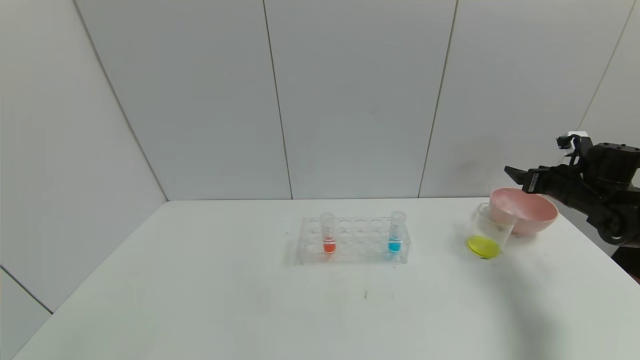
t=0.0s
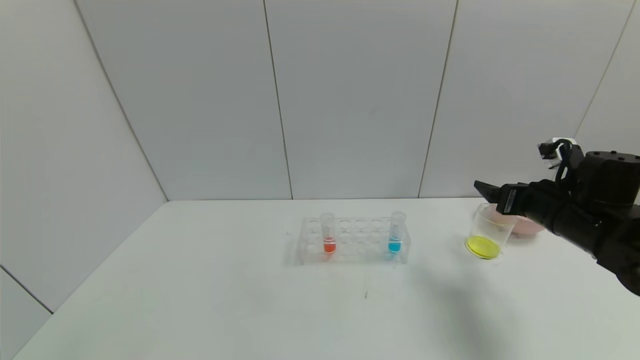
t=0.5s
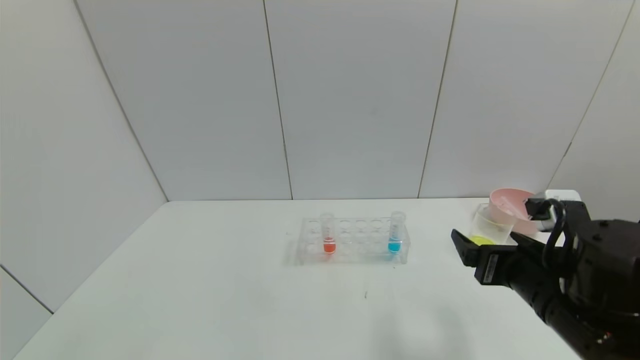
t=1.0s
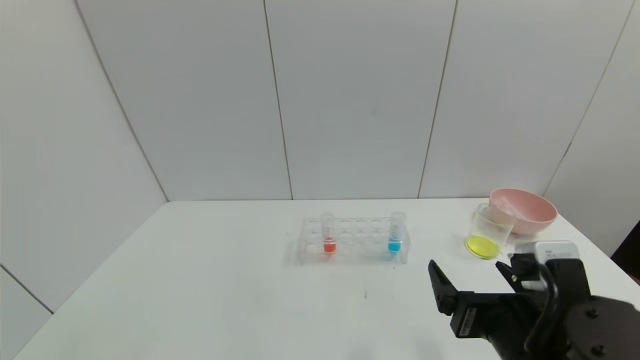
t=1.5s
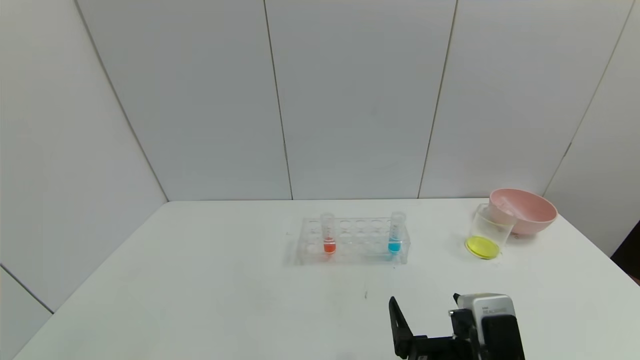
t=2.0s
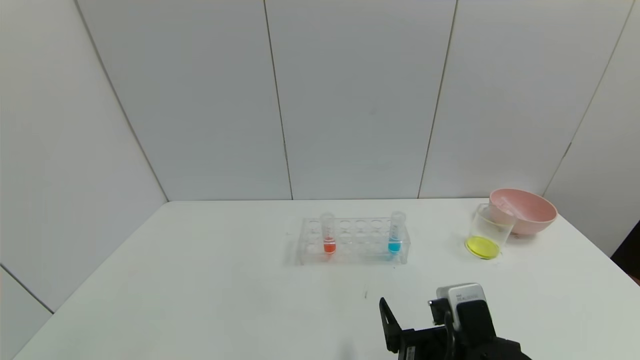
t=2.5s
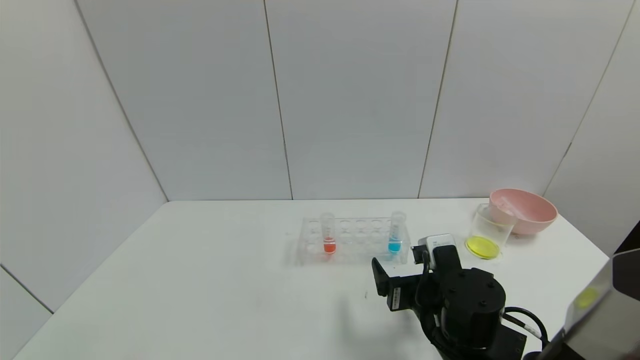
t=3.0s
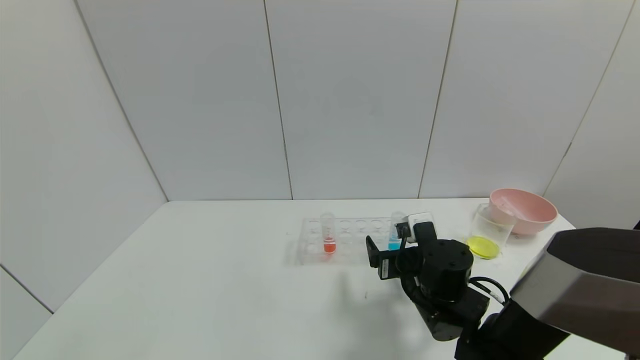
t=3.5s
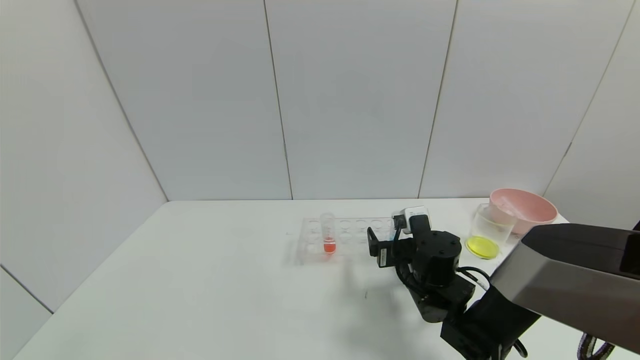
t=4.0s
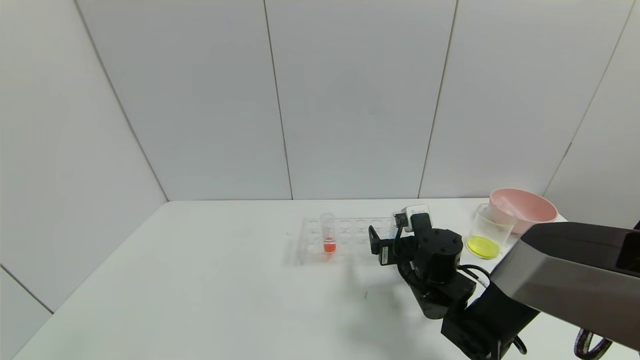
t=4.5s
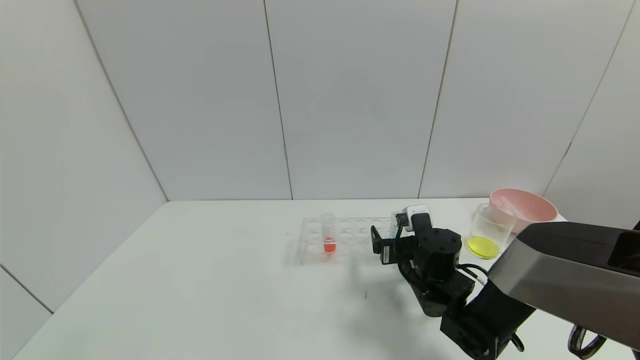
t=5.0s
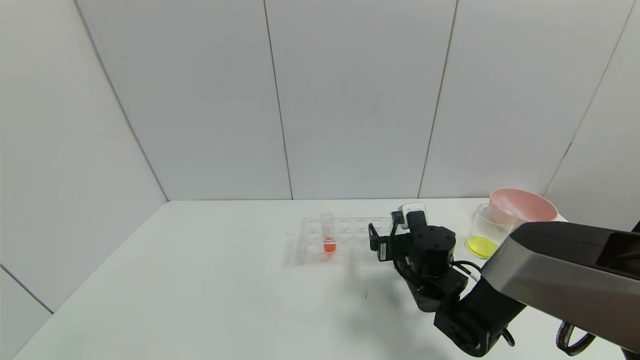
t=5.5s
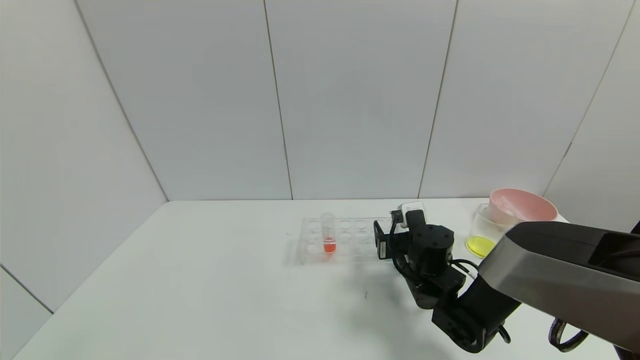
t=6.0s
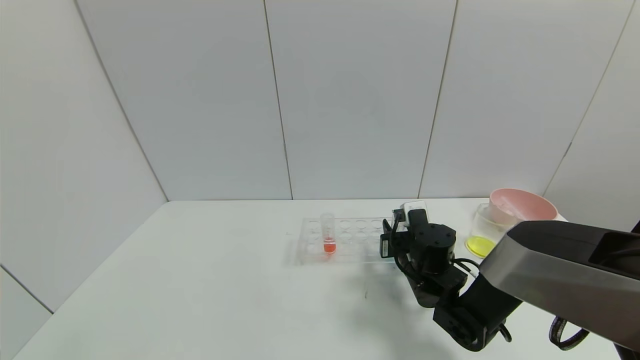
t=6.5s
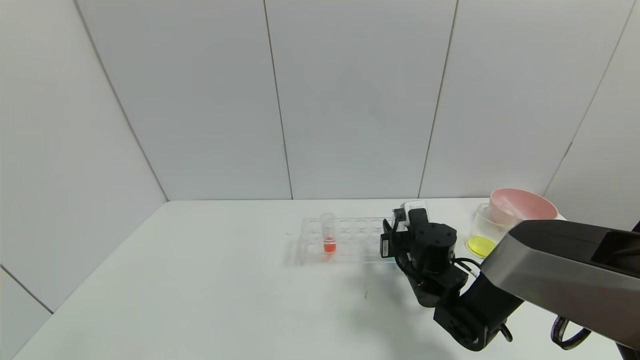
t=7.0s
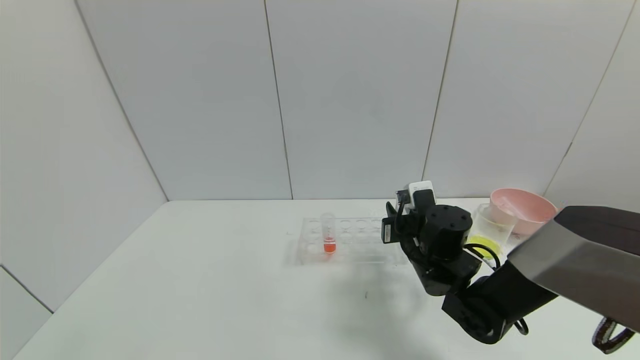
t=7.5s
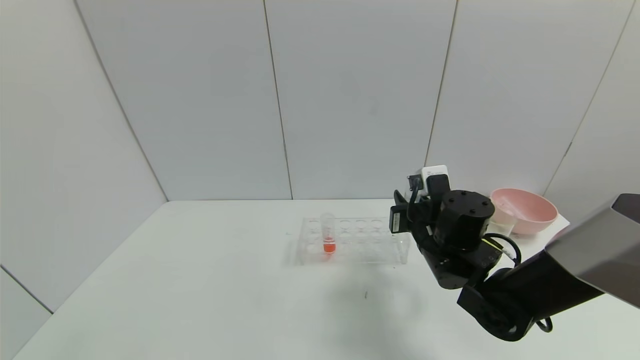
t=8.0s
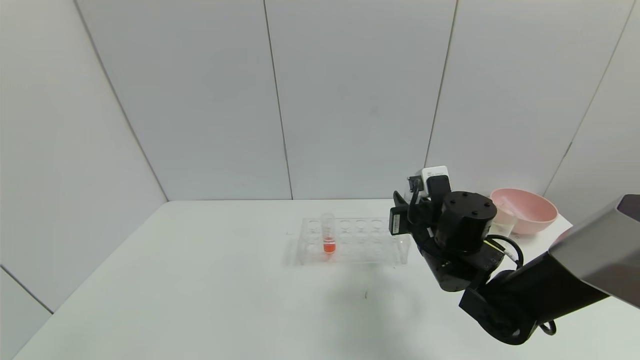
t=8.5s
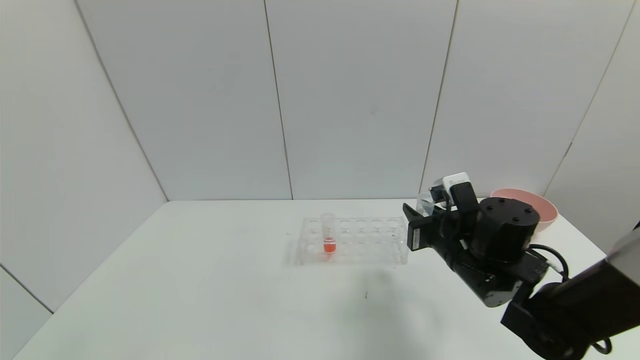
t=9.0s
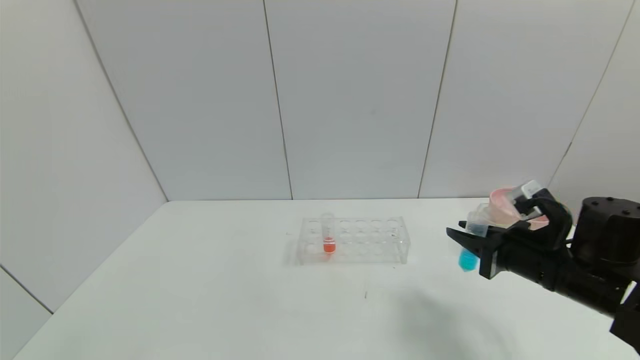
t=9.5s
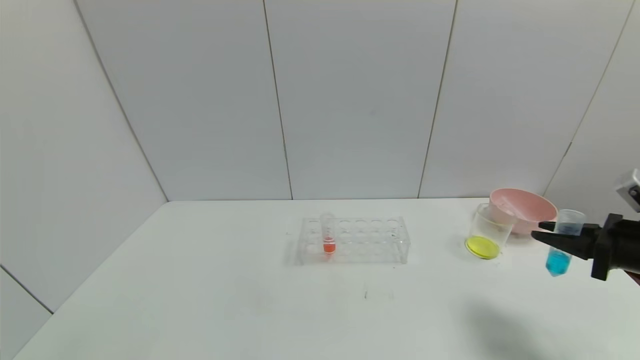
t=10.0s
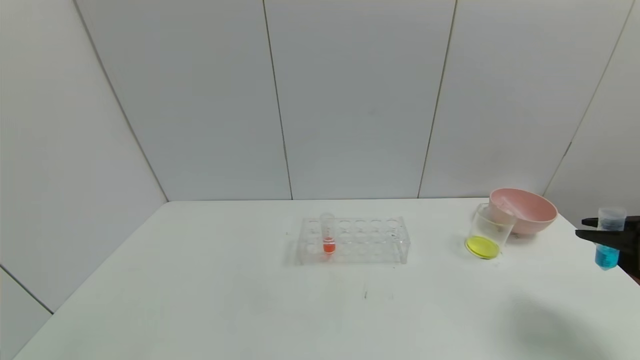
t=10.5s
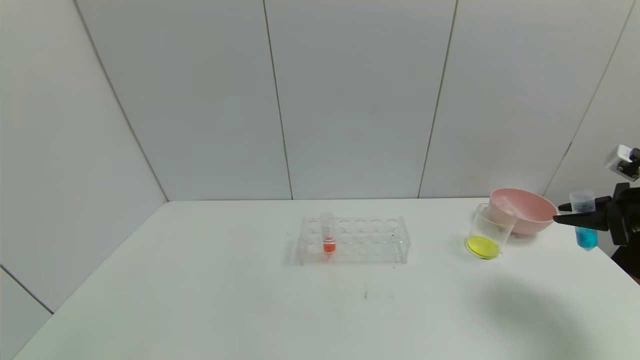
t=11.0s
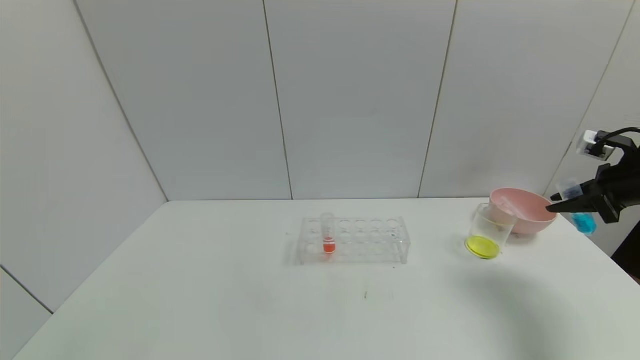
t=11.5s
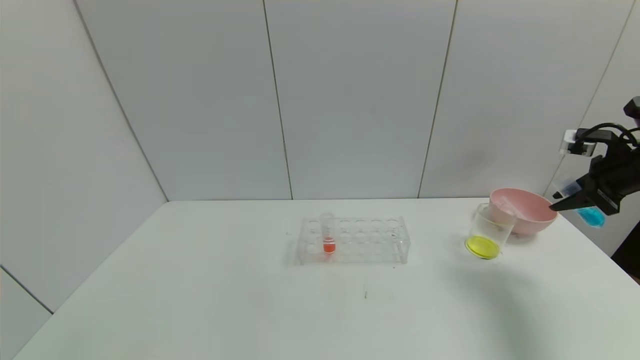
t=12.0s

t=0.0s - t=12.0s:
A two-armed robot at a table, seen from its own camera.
Task of the whole recording: pick up the test tube with yellow pigment and the test tube with blue pigment by grippers and pour them into the beaker.
Step, t=0.0s - t=6.5s: Grasp the blue reagent with the right gripper.
t=0.0s - t=2.0s: The right gripper moves to the left and backward, approximately 40 cm.
t=2.0s - t=4.0s: The right gripper is displaced forward by roughly 20 cm.
t=4.0s - t=6.0s: The right gripper closes.
t=6.0s - t=8.0s: The right gripper shifts approximately 10 cm upward, and closes its fingers.
t=8.0s - t=10.0s: The right gripper shifts some 25 cm to the right.
t=10.0s - t=12.0s: The right gripper goes approximately 15 cm forward and upward.

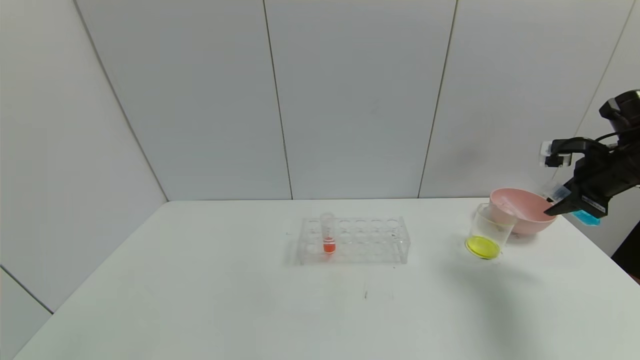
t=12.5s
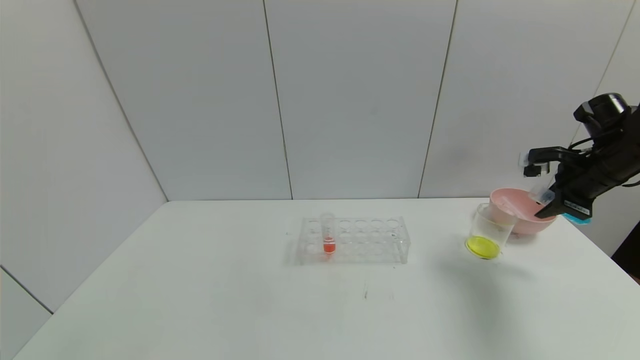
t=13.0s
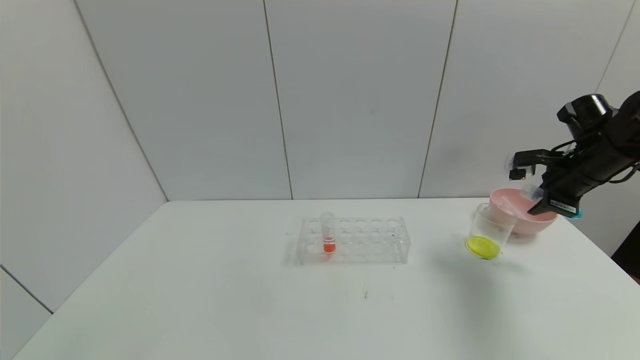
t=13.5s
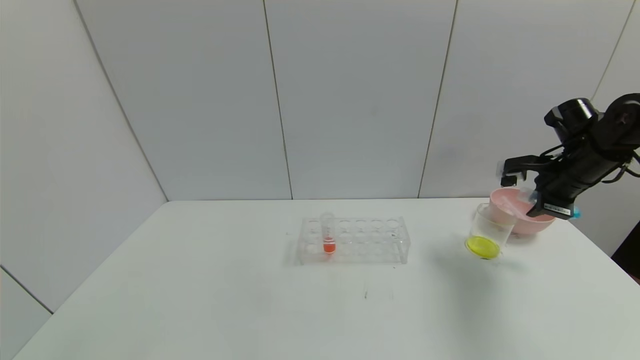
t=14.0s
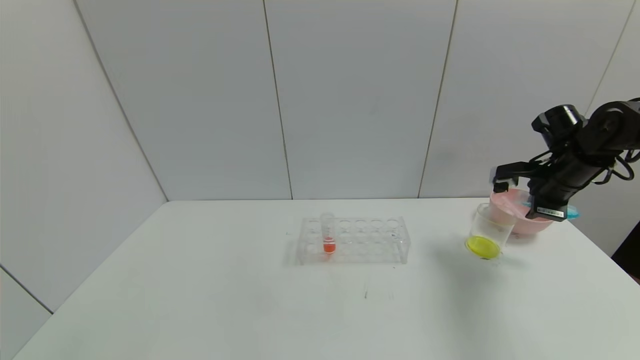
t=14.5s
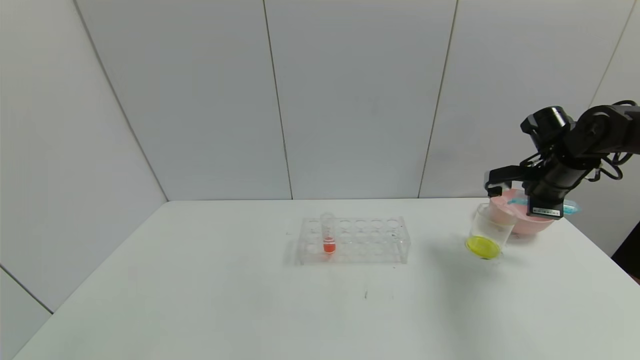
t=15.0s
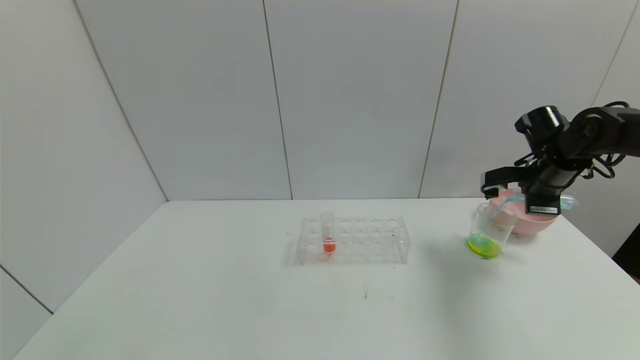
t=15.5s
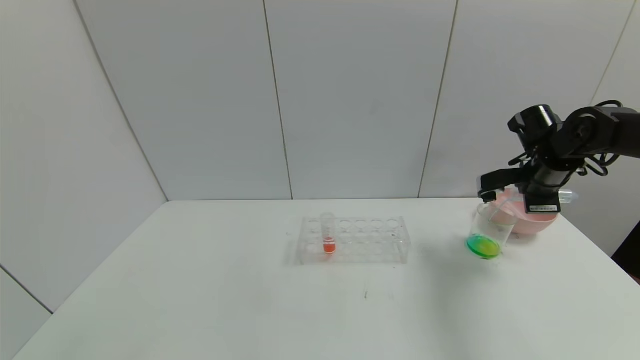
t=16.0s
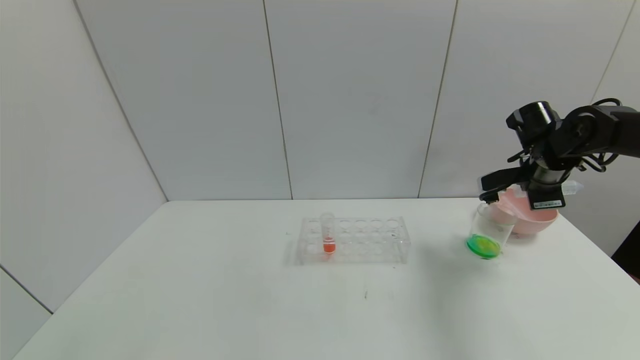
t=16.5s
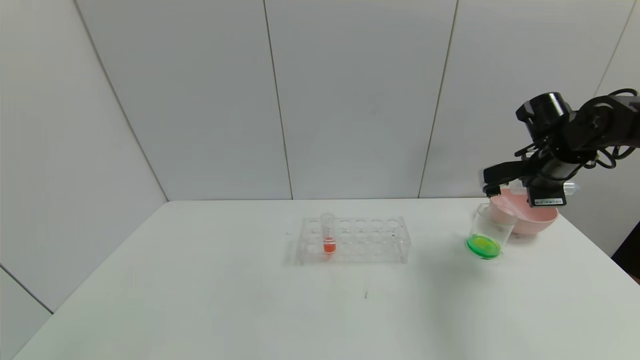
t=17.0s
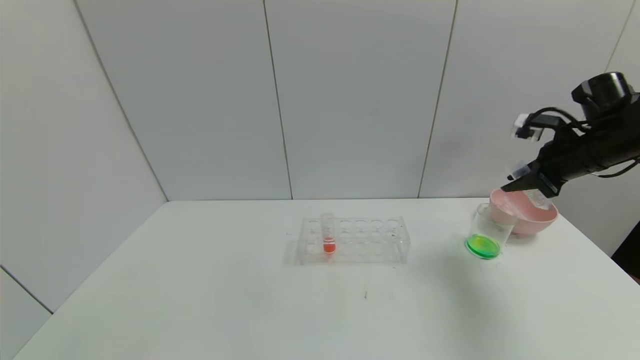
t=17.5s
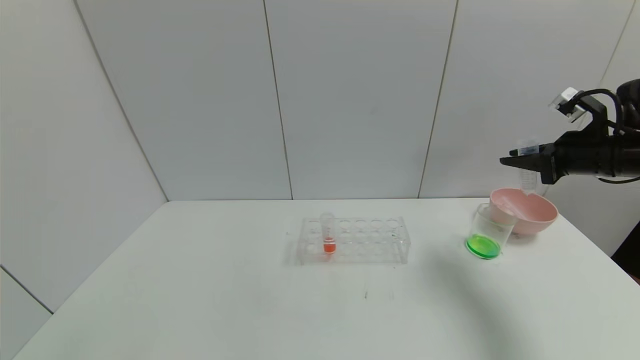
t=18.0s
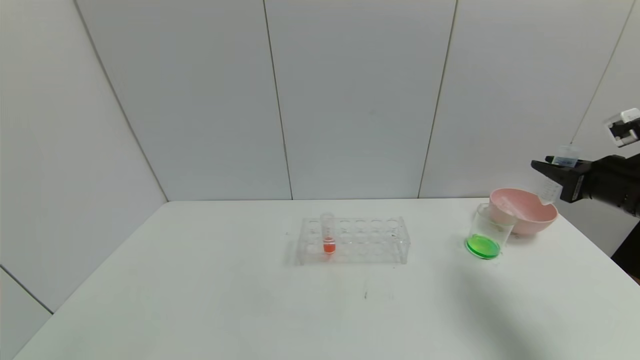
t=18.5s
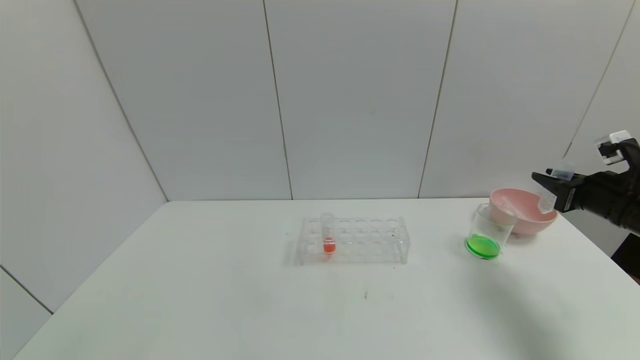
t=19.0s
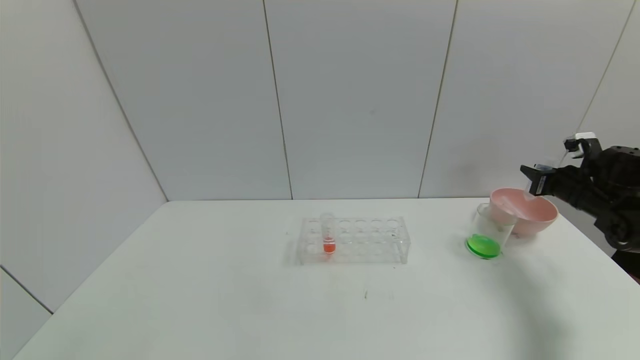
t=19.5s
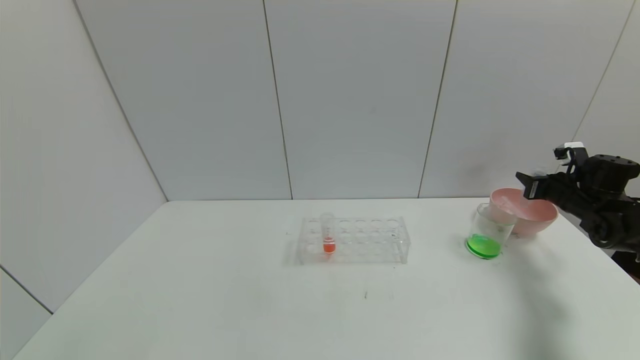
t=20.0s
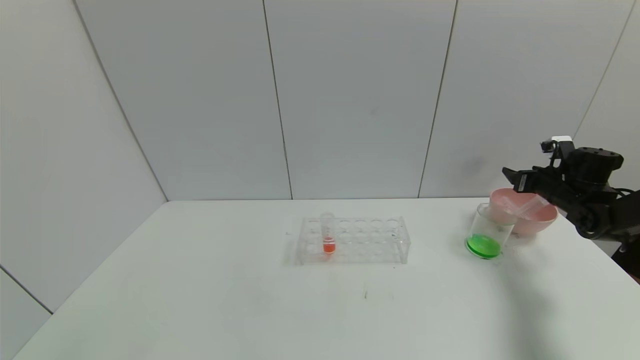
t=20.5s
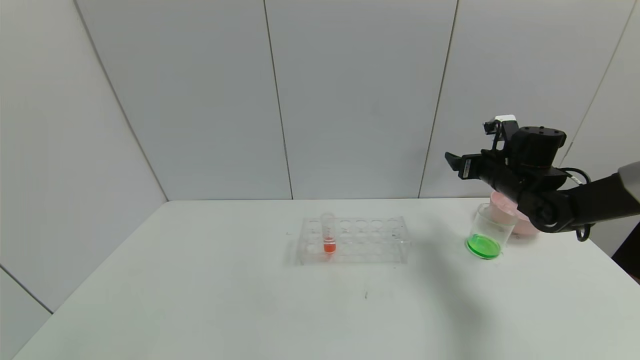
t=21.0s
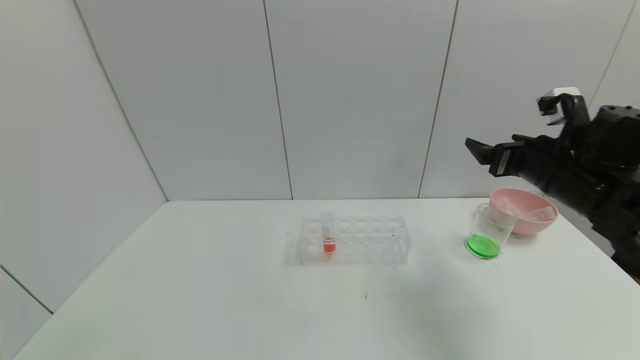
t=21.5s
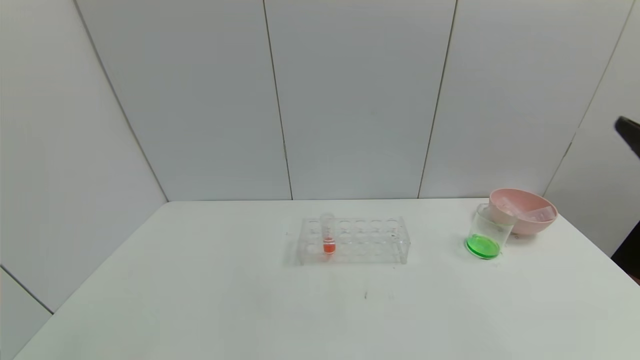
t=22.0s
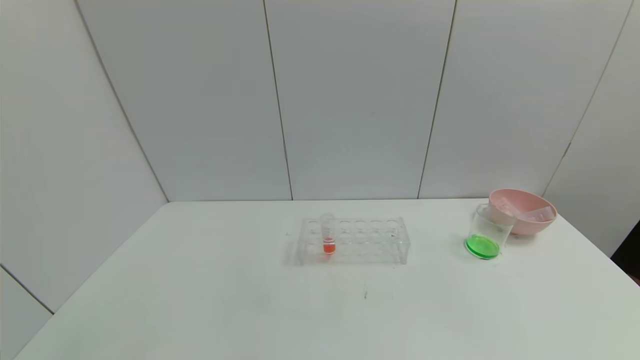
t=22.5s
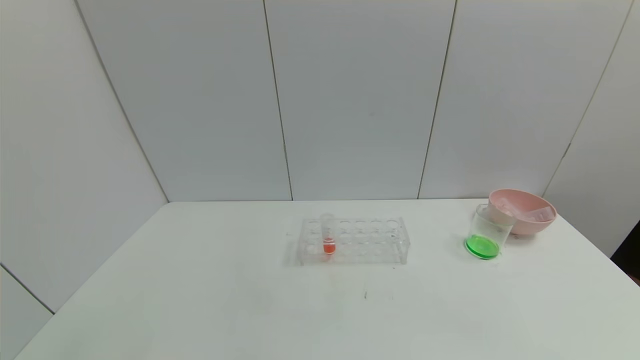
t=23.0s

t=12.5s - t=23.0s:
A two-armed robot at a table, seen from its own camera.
Task of the whole recording: pick up the test tube with yellow pigment and the test tube with blue pigment by grippers and pour them into the beaker.
Step, t=12.5s - t=16.5s: Pour the blue reagent into the graduated cylinder with the right gripper.
Step, t=17.0s - t=20.5s: Place the test tube into the bowl with the right gripper.
t=12.5s - t=14.5s: The right gripper shifts about 5 cm to the left.
t=16.5s - t=19.0s: The right gripper moves backward and to the right, approximately 10 cm.
t=19.0s - t=21.0s: The right gripper travels to the left and forward by some 15 cm, and opens its fingers.
t=21.0s - t=23.0s: The right gripper shifts approximately 50 cm backward.
